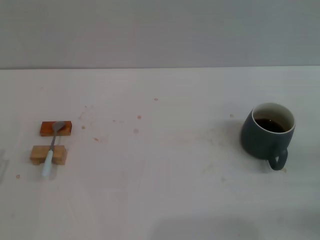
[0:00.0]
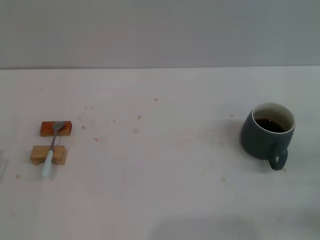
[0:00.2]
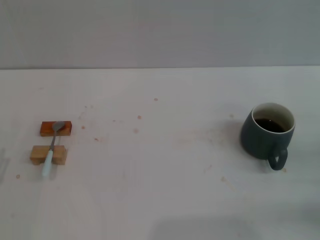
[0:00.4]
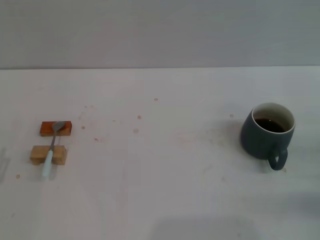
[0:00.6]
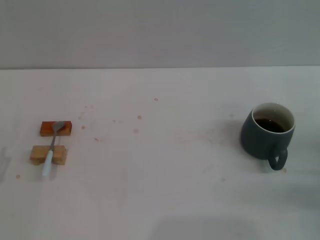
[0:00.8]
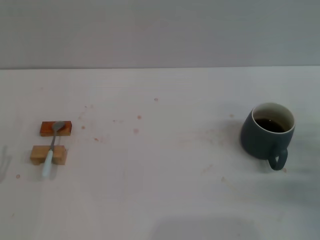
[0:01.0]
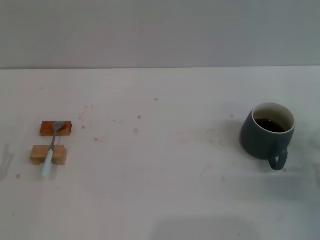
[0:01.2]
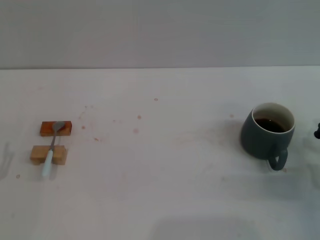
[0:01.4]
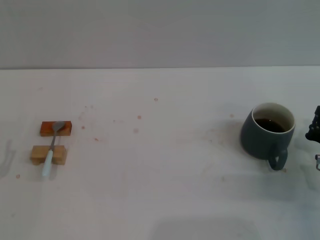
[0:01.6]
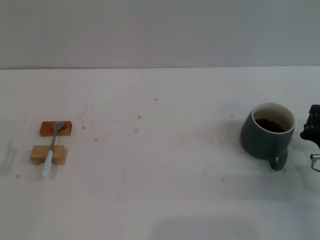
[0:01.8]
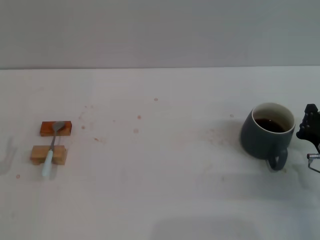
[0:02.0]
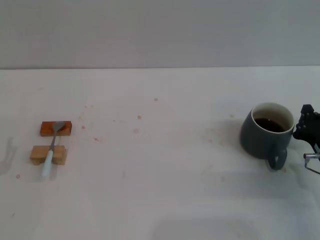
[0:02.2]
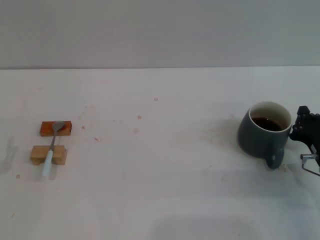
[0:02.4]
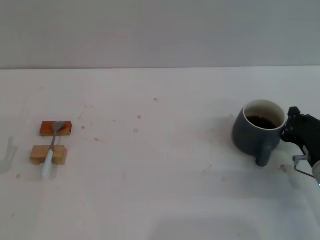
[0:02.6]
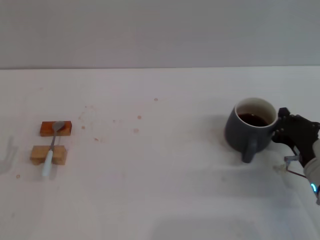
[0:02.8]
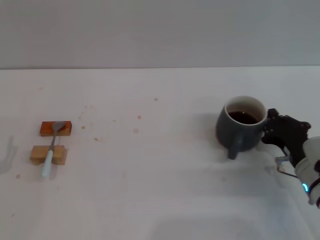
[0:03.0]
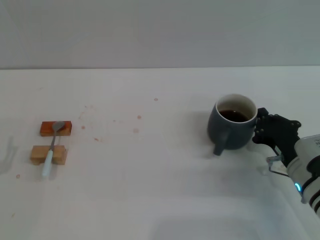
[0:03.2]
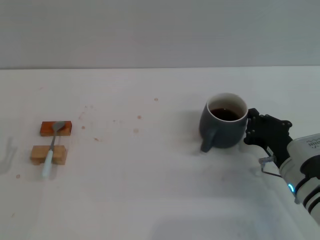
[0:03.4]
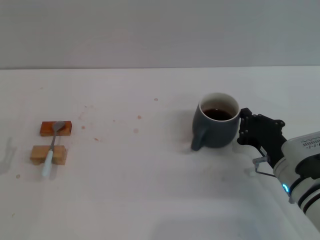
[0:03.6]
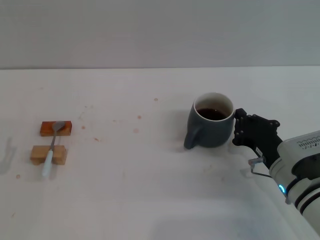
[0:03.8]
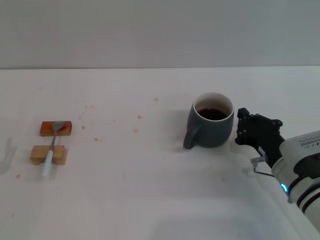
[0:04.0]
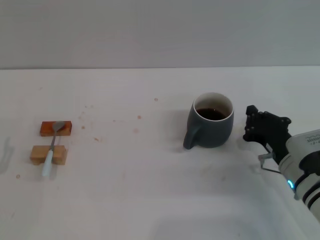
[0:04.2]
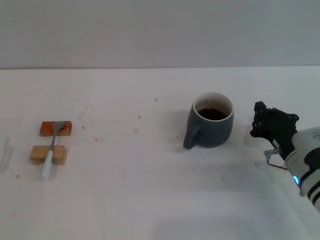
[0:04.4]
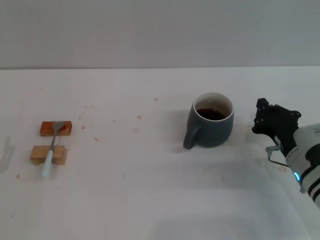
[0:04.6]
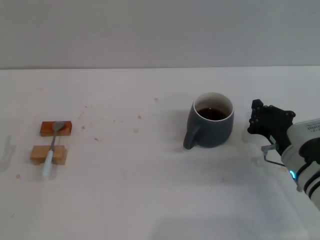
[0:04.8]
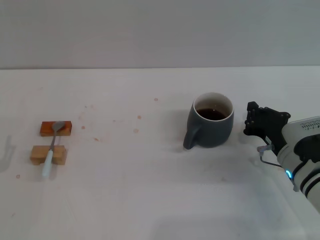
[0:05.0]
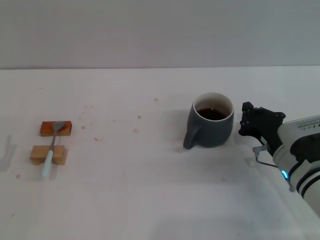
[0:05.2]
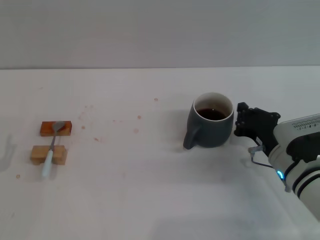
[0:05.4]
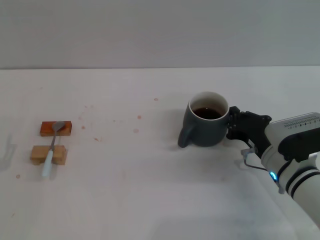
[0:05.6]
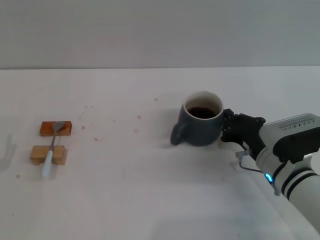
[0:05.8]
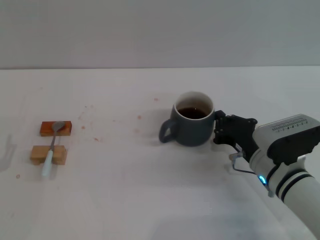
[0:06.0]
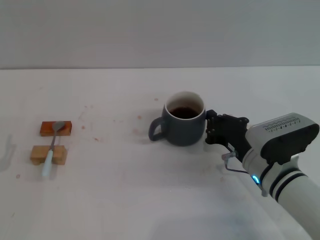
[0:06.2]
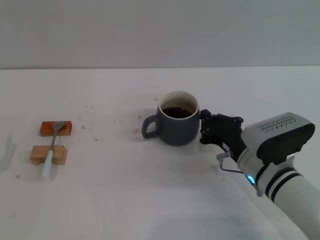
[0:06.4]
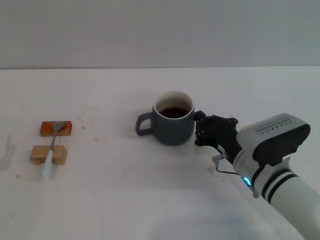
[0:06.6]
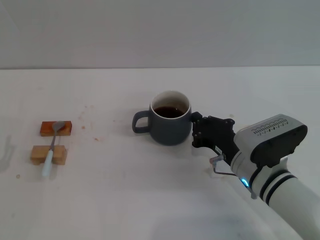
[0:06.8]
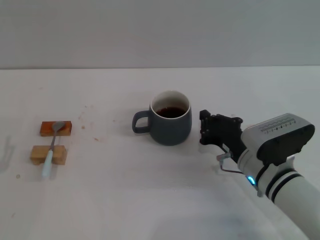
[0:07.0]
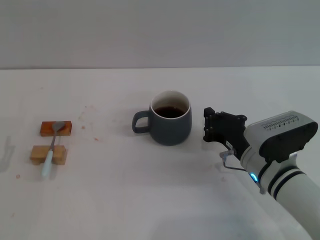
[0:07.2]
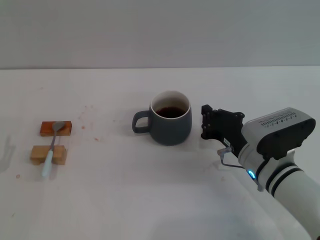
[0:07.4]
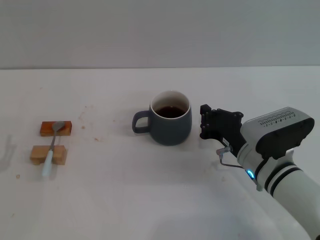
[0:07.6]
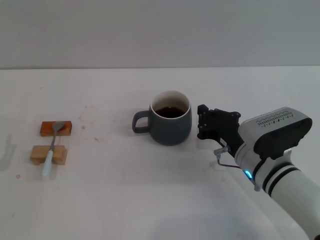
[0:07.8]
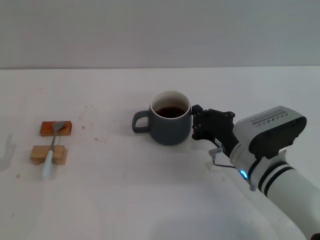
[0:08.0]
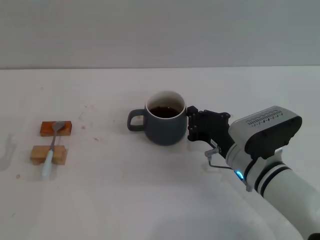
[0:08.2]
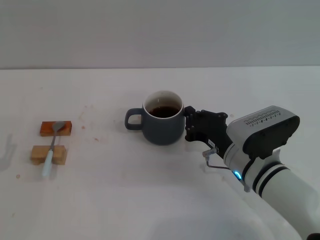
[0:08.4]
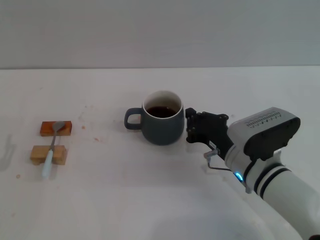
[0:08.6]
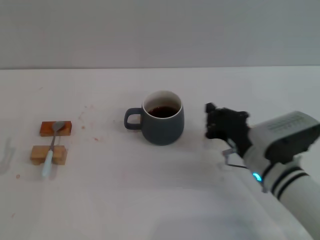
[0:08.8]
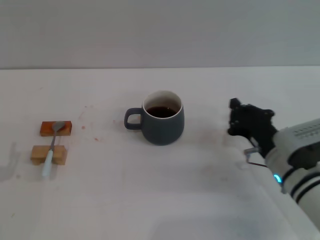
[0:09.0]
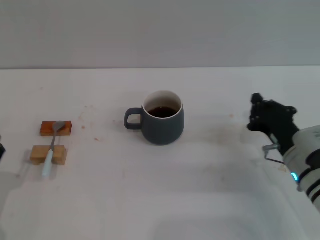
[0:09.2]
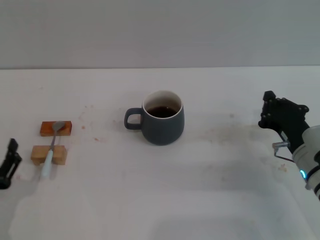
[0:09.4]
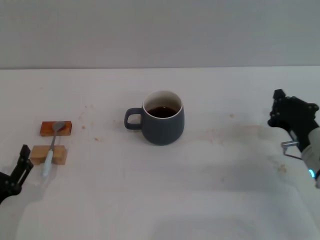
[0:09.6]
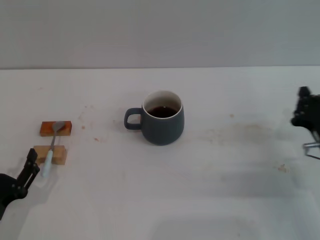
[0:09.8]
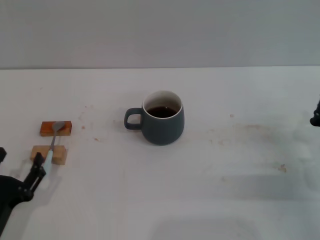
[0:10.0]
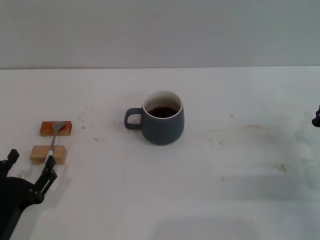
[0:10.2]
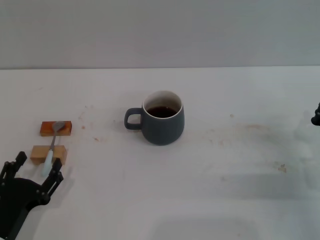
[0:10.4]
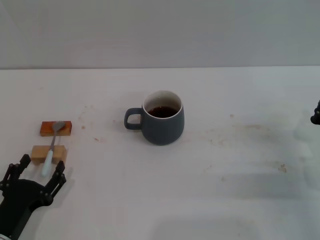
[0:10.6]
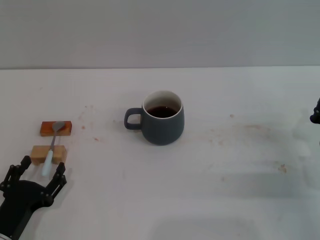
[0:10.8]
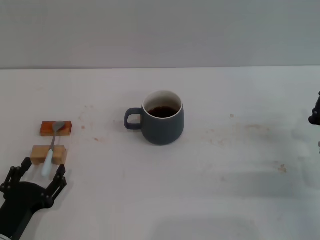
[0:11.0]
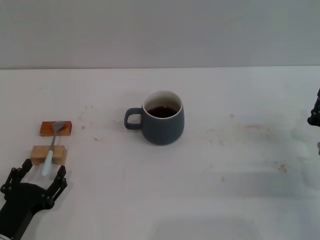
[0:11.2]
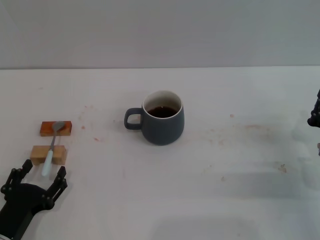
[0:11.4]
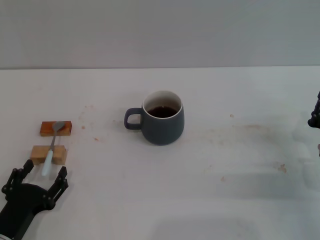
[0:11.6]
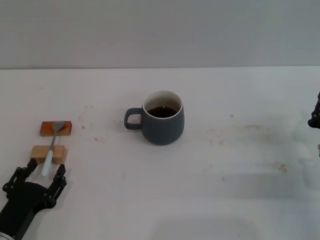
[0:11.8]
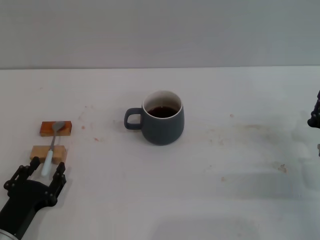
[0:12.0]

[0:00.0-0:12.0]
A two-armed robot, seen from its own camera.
Task of the whole recording: Move the grey cup to the center, lift the blue spoon, stir it three times in the cup, and put the spoon into the cup.
Step, 0:00.0 to 0:08.8: Move the cup with coffee to the center of view with the right gripper.
0:00.0 to 0:01.6: The right gripper moves to the left, roughly 5 cm.
0:01.6 to 0:03.0: The right gripper goes approximately 5 cm to the left.
0:03.0 to 0:04.4: There are only small adjustments of the grippers.
0:04.4 to 0:06.0: There are only small adjustments of the grippers.
0:06.0 to 0:09.0: The grippers stay close to where they were, moving slightly.
0:09.0 to 0:10.4: The left gripper travels to the right by about 5 cm. Meanwhile the right gripper travels to the right by approximately 10 cm.
0:10.4 to 0:12.0: The grippers make only small movements.

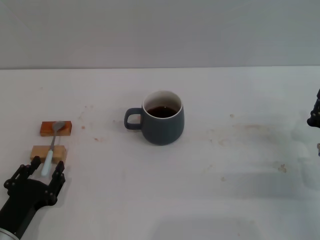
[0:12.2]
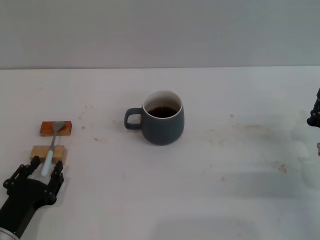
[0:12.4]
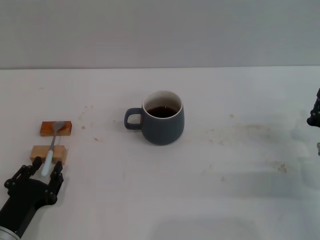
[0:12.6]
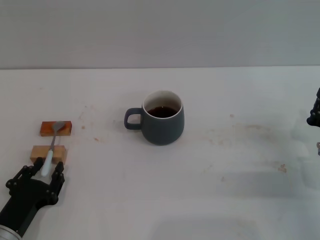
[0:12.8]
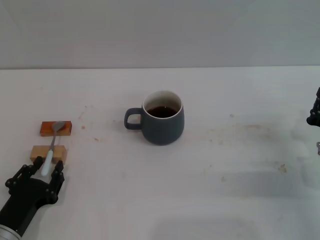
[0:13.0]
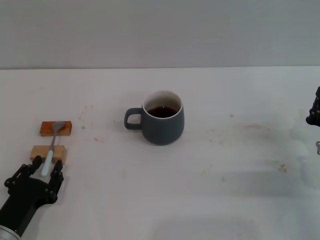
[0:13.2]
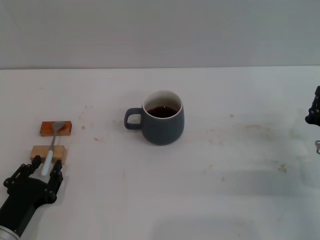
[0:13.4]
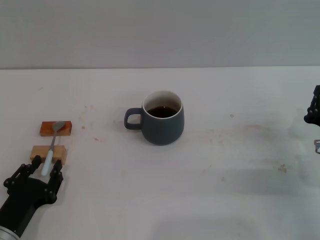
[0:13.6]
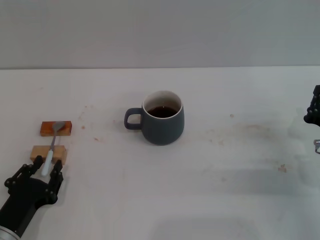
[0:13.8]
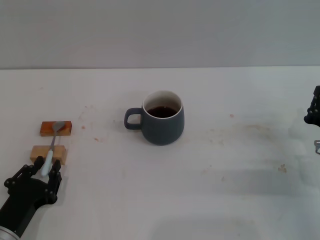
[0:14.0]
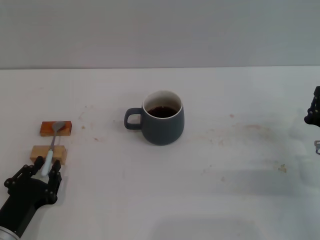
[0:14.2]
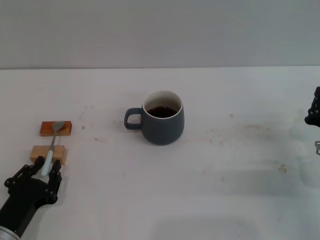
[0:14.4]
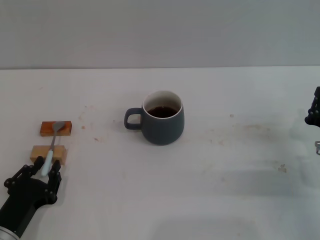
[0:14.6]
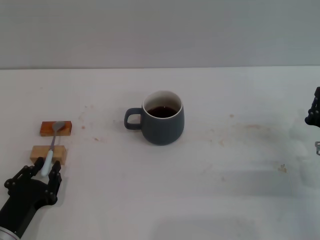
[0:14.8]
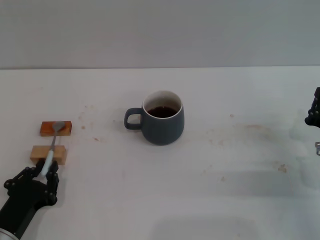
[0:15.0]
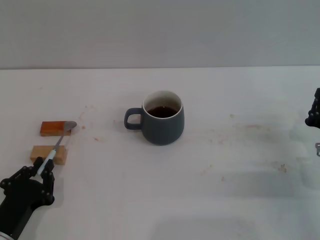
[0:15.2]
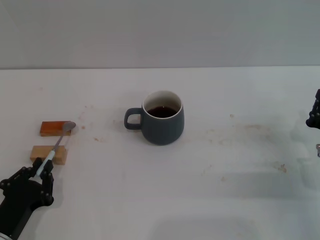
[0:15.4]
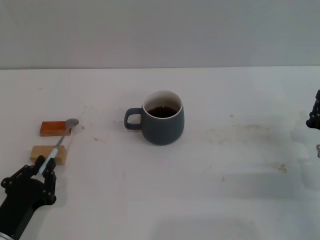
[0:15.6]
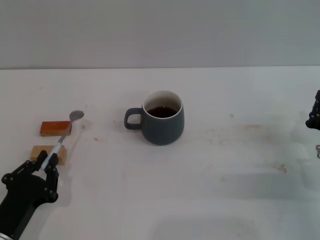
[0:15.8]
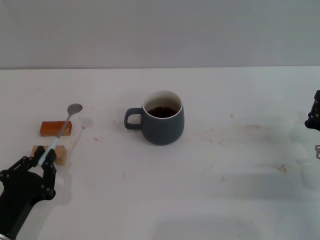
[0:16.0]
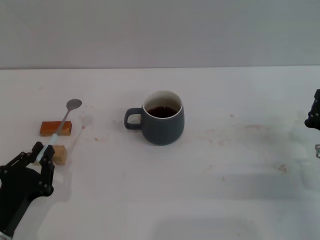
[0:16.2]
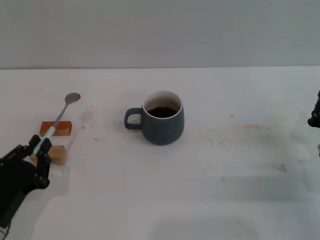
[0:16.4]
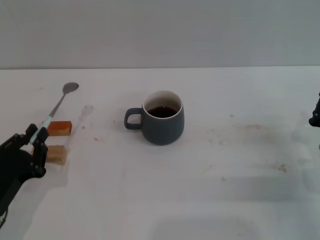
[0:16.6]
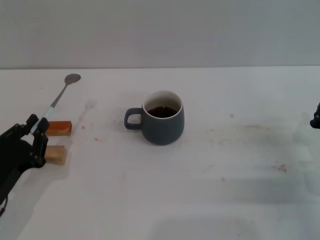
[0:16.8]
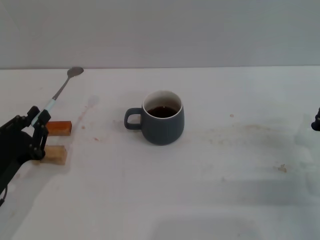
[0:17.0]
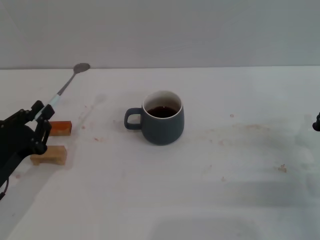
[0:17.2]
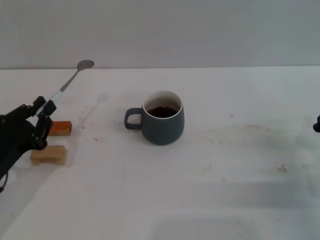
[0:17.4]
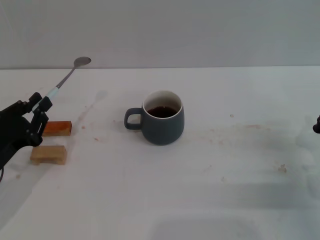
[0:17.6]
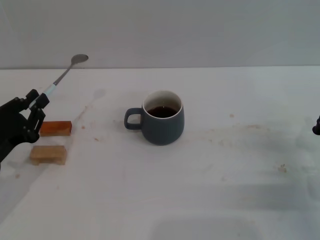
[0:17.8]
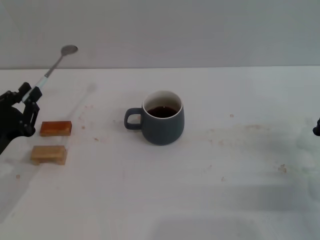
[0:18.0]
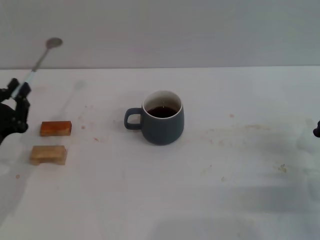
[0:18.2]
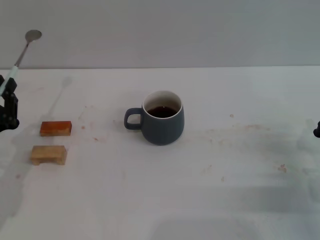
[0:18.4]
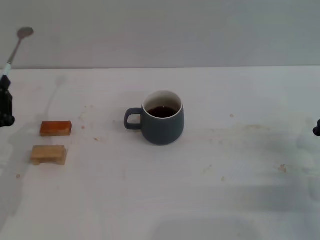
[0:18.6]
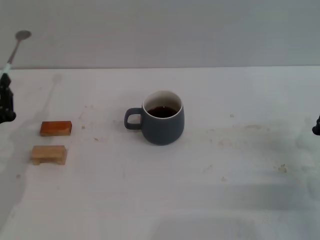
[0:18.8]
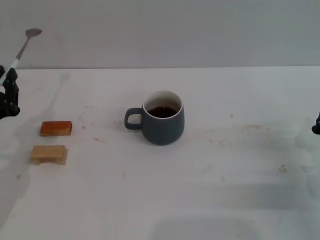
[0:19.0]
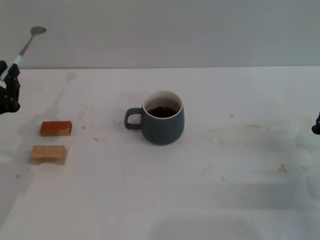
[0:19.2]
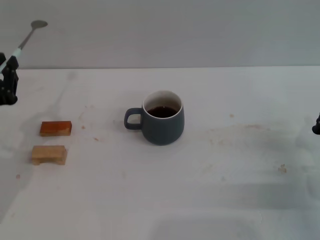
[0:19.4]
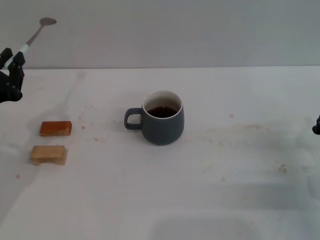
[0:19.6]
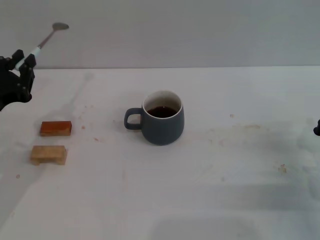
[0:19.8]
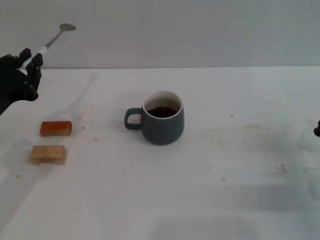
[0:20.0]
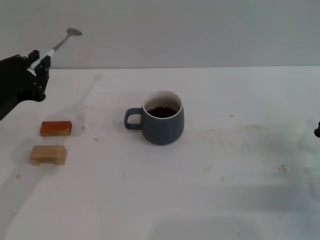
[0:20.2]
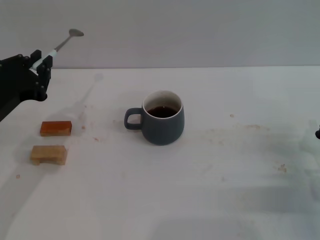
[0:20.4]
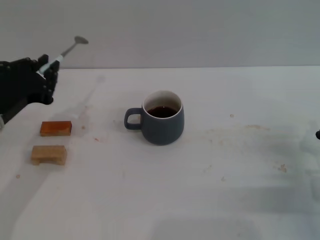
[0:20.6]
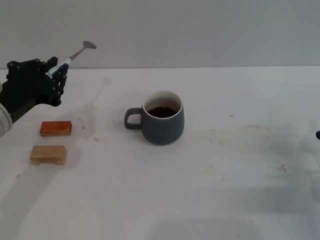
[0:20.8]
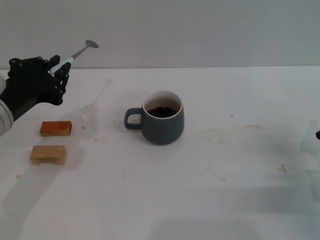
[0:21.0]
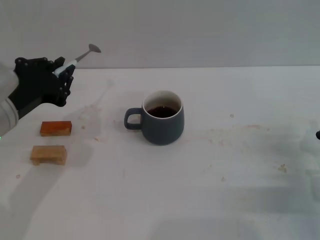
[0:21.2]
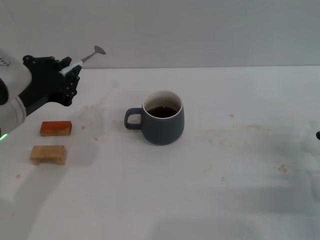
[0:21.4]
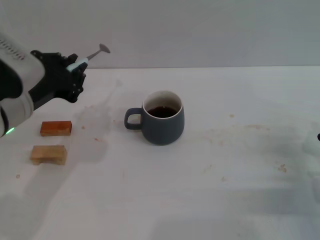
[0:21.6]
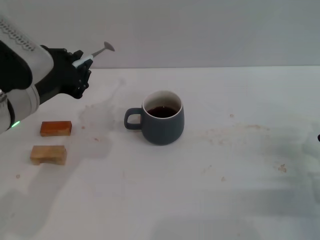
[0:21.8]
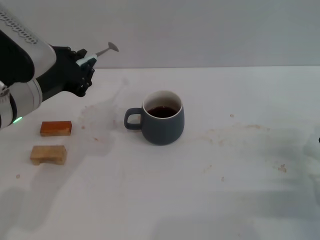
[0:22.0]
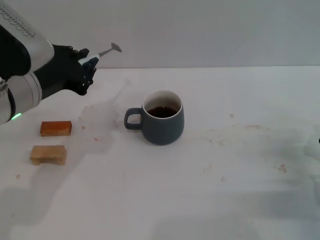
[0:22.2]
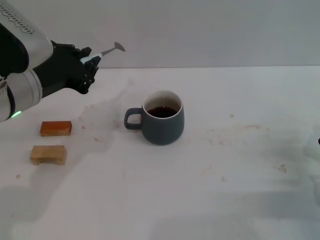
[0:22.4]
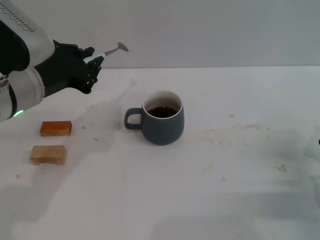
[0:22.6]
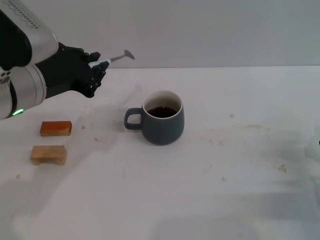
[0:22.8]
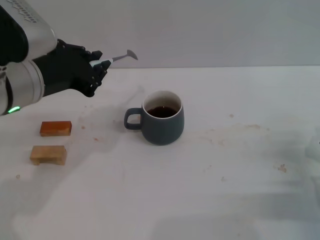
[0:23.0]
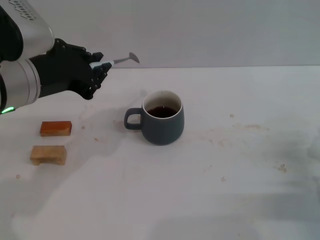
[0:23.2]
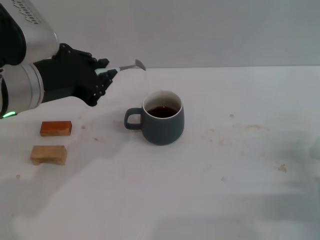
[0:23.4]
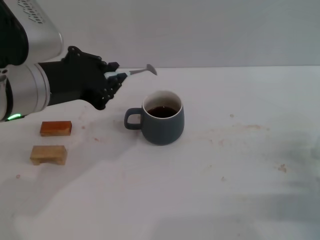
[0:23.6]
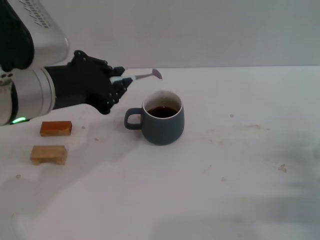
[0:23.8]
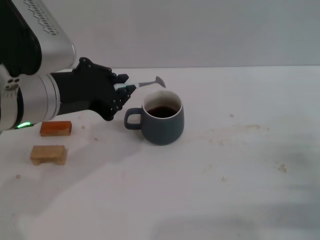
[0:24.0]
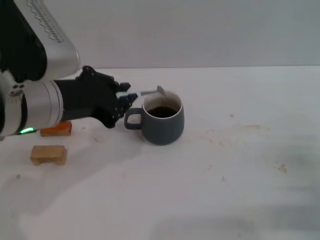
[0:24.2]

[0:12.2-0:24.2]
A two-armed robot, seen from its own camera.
Task of the whole recording: Move the grey cup to the center, lift the blue spoon, stir it three times in the cup, and put the spoon into the cup.
Step, 0:12.2 to 0:18.6: Pick up the spoon with the left gripper.
0:12.2 to 0:15.2: Both grippers stay about where they are.
0:15.2 to 0:16.6: The grippers make only small movements.
0:16.6 to 0:18.2: The left gripper travels forward by some 5 cm.
0:18.2 to 0:19.8: The left gripper travels upward by about 10 cm.
0:19.8 to 0:21.2: The left gripper ends up some 5 cm from where it was.
0:21.2 to 0:22.6: The left gripper shifts by some 5 cm.
0:22.6 to 0:24.2: The grippers move only a little.
